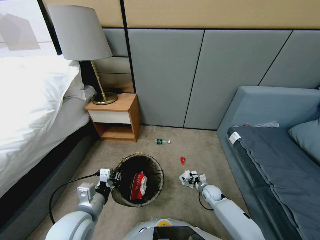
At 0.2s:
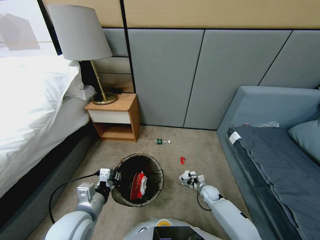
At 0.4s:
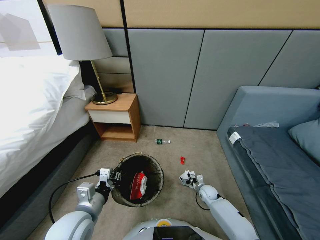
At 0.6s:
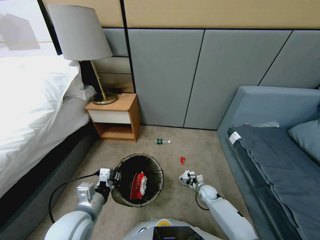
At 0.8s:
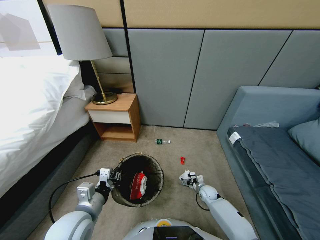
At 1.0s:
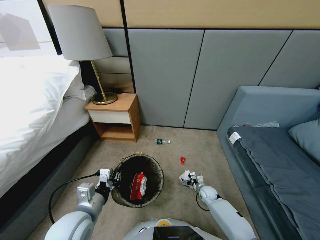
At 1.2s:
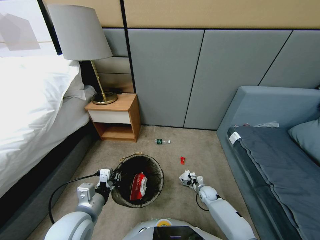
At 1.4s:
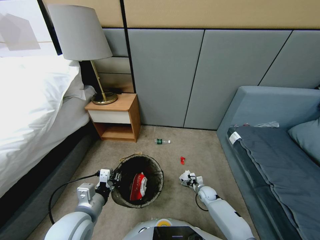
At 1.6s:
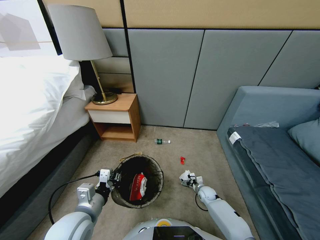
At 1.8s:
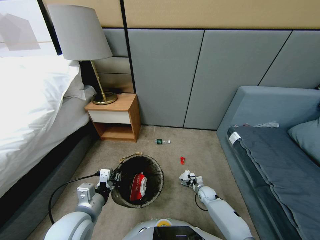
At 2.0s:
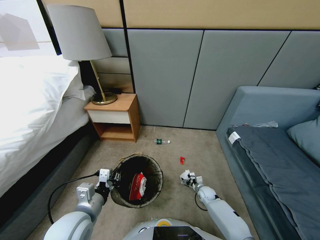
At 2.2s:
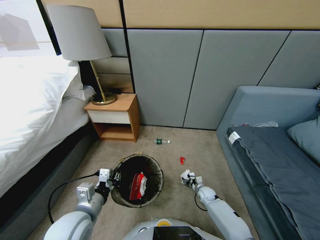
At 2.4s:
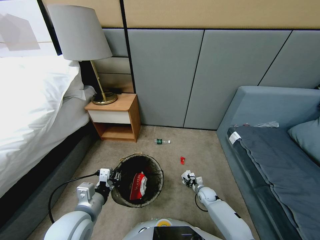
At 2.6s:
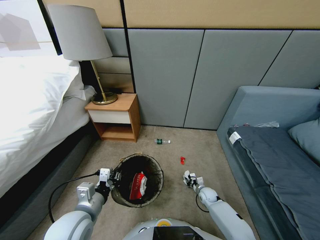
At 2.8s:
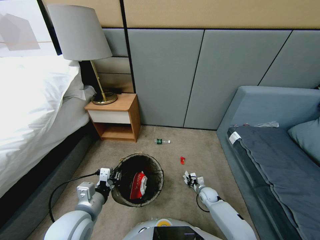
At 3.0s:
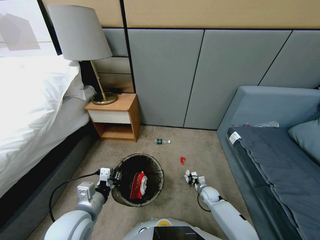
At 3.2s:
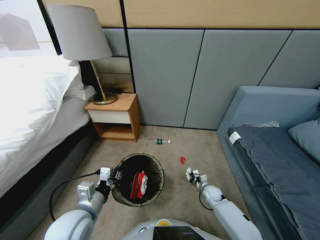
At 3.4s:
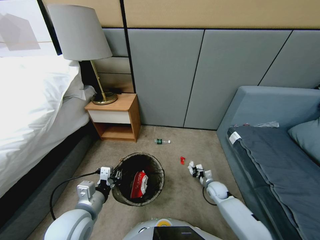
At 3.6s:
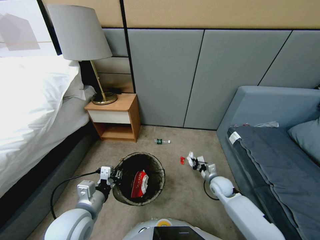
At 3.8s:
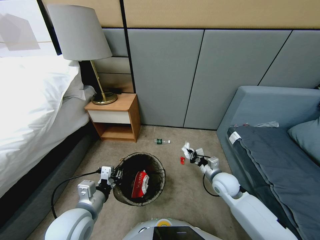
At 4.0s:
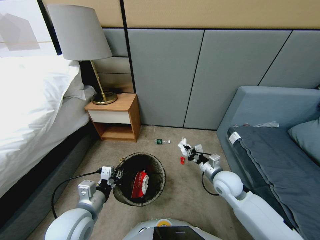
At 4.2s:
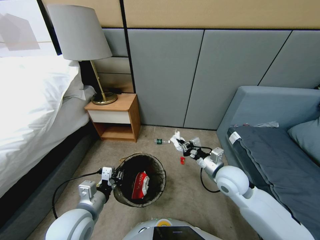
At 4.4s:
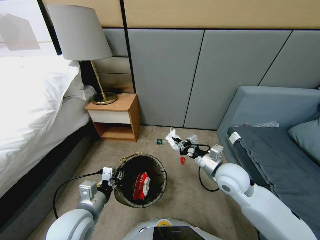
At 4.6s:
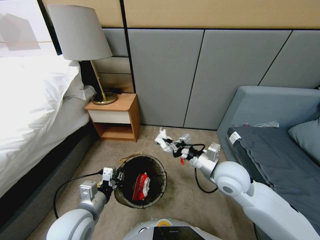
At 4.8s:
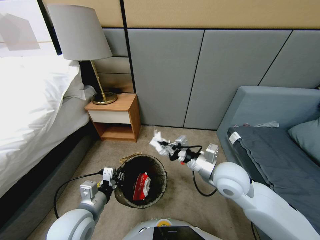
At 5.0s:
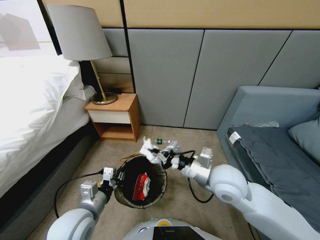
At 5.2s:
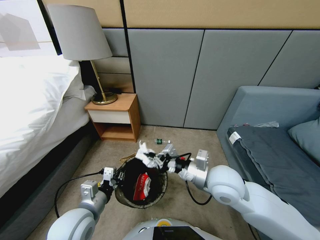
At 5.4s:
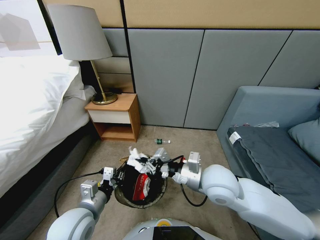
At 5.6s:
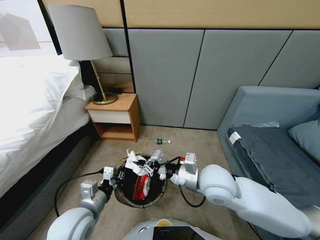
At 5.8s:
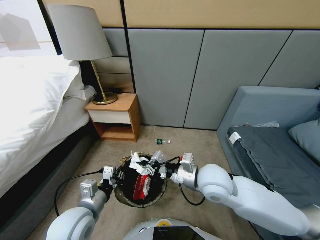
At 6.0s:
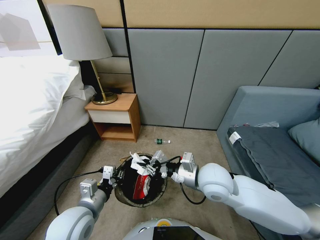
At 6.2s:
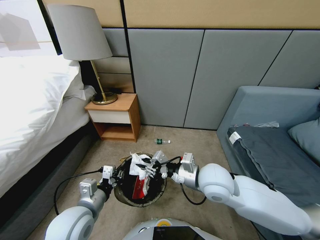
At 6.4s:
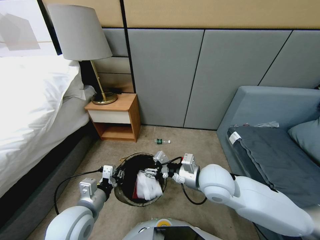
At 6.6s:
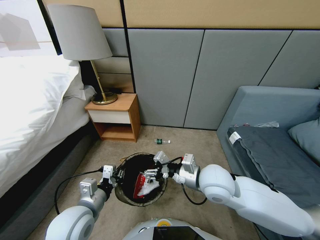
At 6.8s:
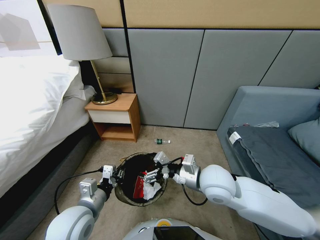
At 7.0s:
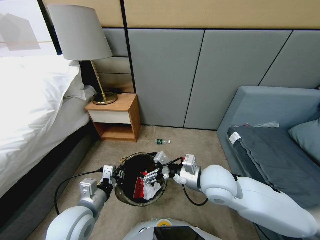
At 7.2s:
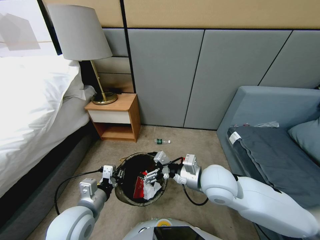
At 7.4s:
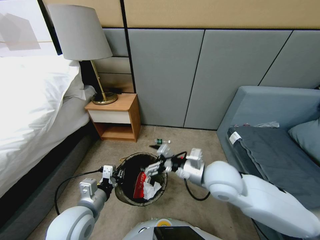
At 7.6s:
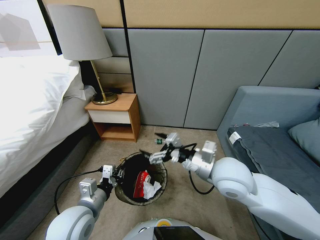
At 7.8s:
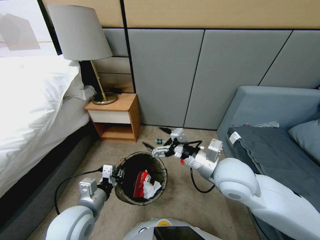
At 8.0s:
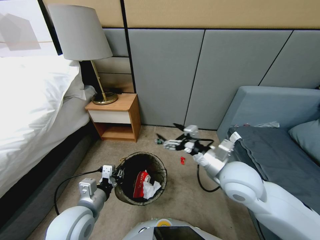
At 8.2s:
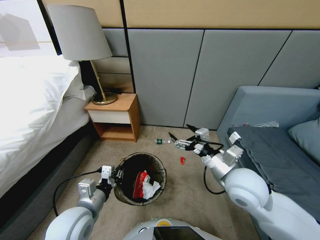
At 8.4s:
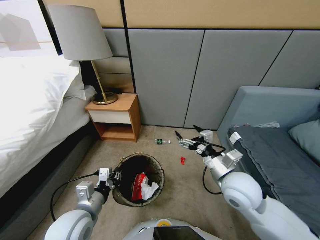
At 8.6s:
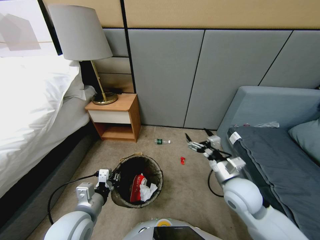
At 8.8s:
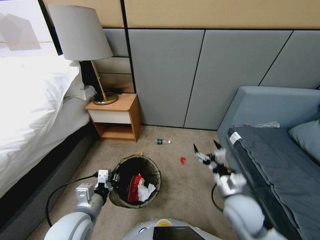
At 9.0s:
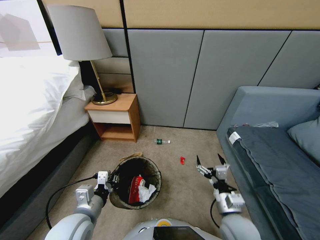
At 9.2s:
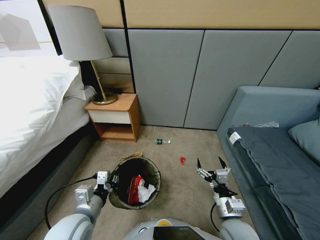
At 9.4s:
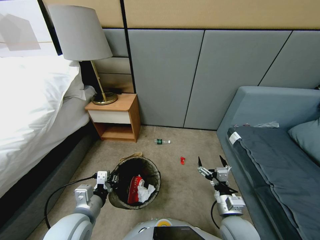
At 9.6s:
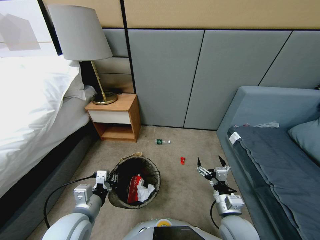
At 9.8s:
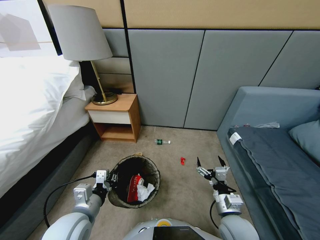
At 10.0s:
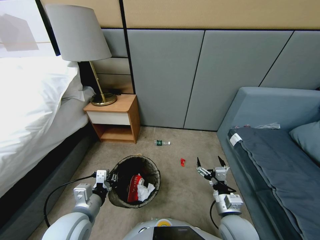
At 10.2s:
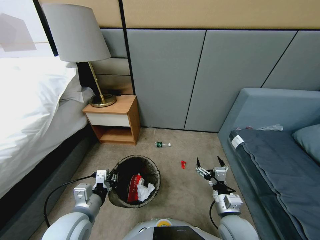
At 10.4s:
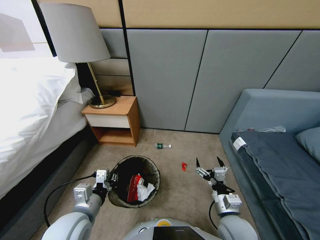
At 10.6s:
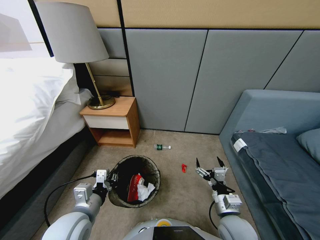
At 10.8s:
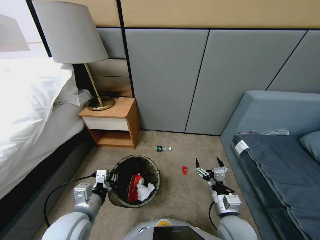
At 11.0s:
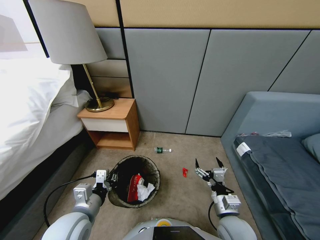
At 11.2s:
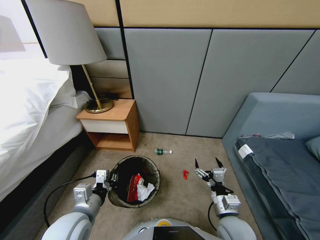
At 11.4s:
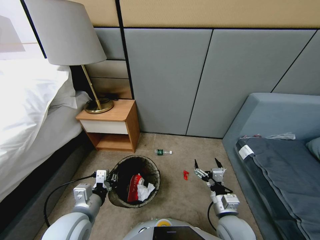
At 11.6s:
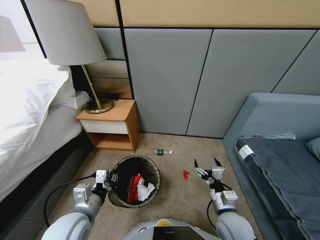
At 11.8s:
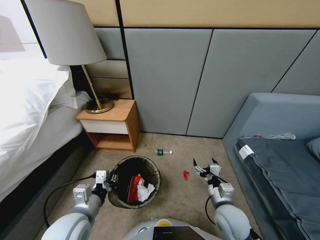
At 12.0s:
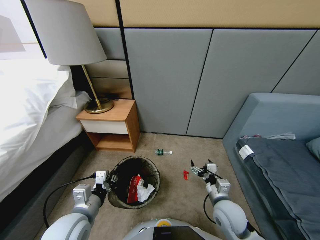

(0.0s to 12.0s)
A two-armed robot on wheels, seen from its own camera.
Task of the whole recording: Pick up the trash bin, then pick up the garbage from the floor and place it into the trash bin.
0.0s - 1.6s: The grippers move only a little.
1.6s - 3.0s: The right gripper closes.
3.0s - 4.4s: The right gripper is displaced upward by some 35 cm.
4.4s - 6.0s: The right gripper travels to the left by approximately 5 cm.
6.0s - 7.6s: The right gripper opens.
7.6s - 9.0s: The right gripper heads to the right and downward, covering about 10 cm.
9.0s - 10.4s: The right gripper travels downward and backward by roughly 15 cm.
10.4s - 12.0s: The right gripper goes approximately 5 cm forward.

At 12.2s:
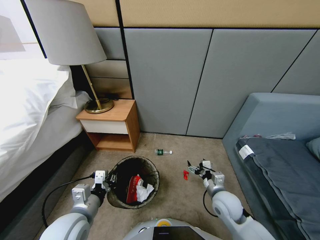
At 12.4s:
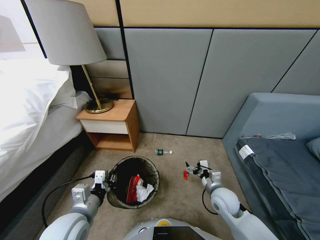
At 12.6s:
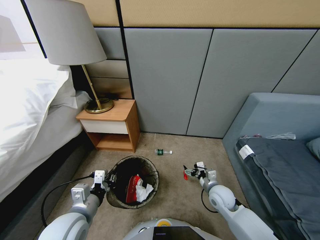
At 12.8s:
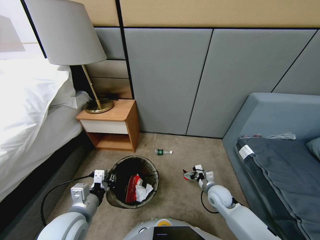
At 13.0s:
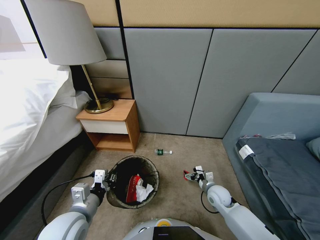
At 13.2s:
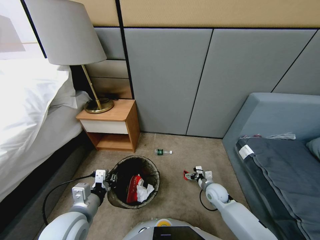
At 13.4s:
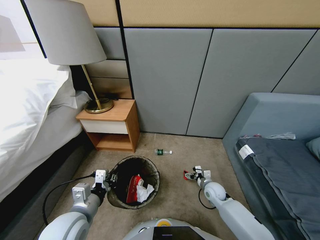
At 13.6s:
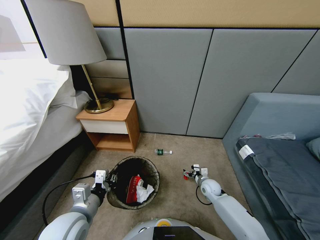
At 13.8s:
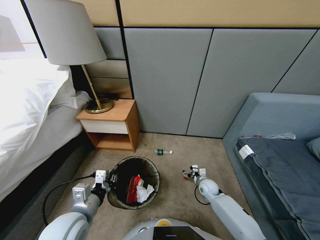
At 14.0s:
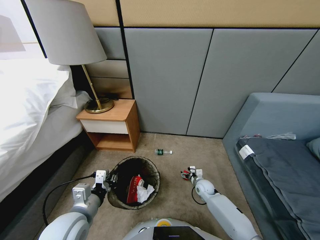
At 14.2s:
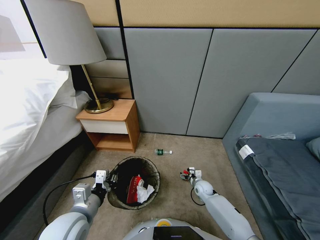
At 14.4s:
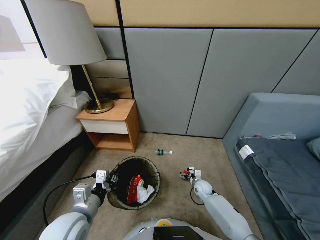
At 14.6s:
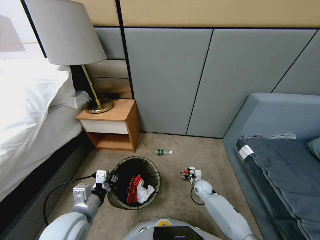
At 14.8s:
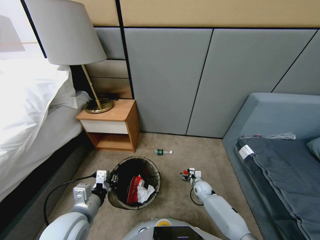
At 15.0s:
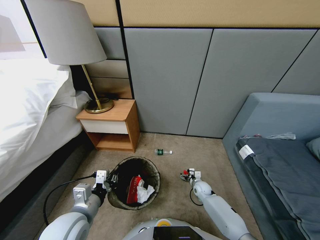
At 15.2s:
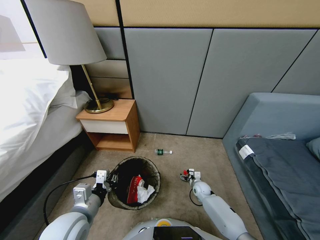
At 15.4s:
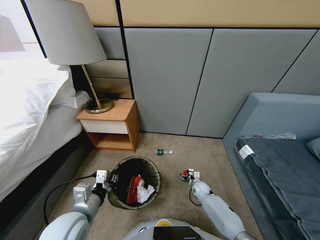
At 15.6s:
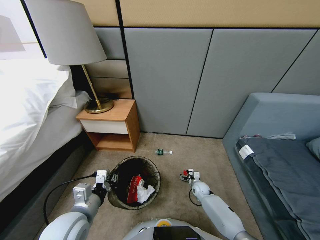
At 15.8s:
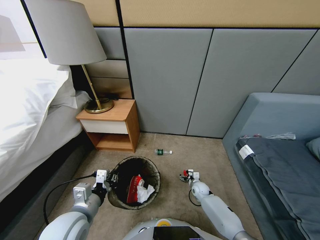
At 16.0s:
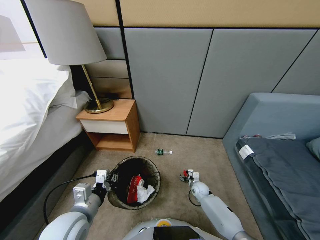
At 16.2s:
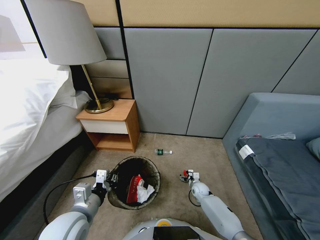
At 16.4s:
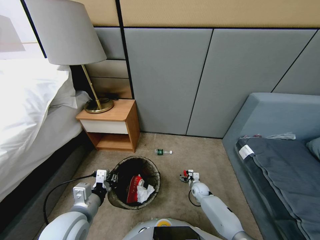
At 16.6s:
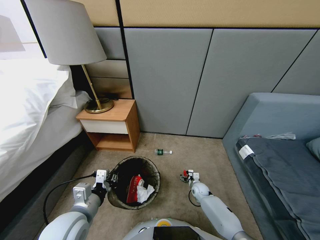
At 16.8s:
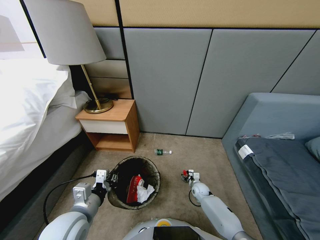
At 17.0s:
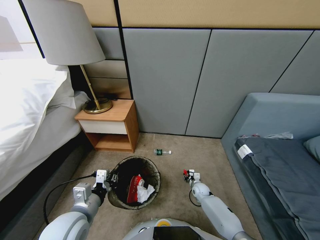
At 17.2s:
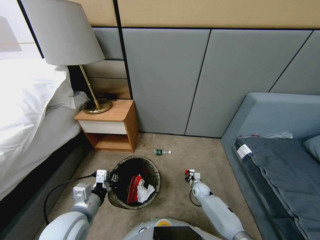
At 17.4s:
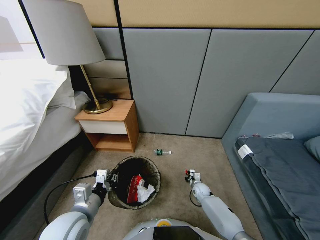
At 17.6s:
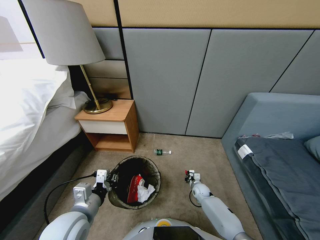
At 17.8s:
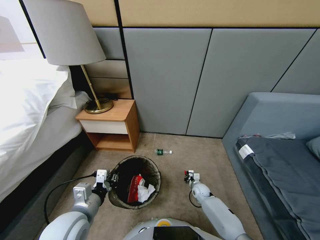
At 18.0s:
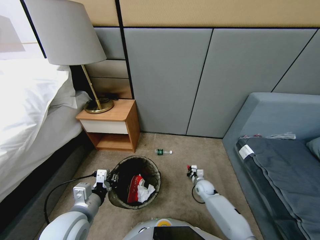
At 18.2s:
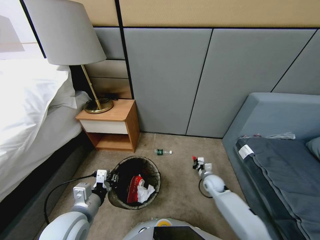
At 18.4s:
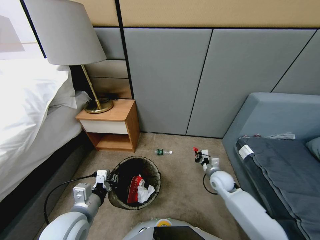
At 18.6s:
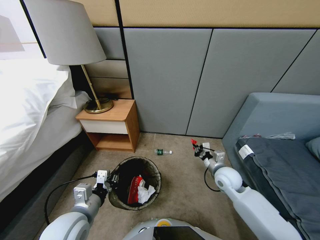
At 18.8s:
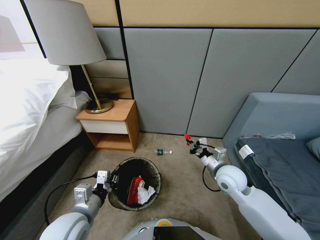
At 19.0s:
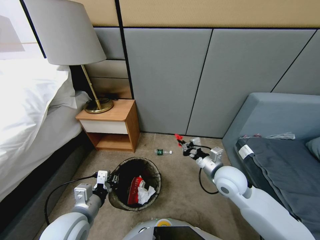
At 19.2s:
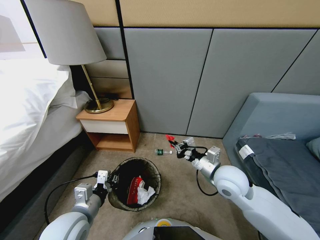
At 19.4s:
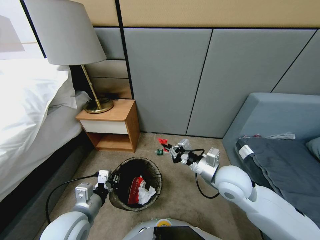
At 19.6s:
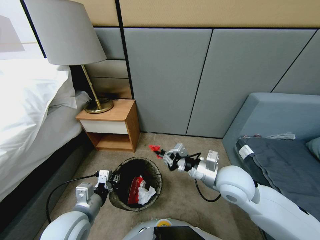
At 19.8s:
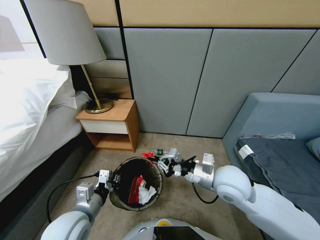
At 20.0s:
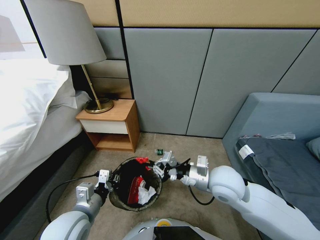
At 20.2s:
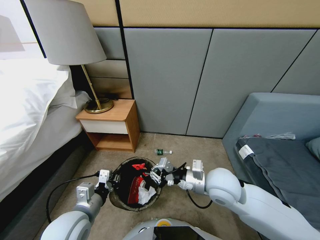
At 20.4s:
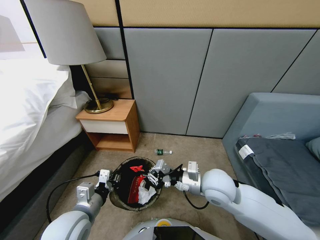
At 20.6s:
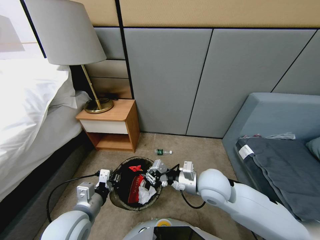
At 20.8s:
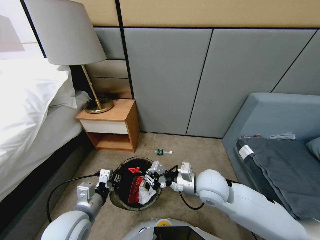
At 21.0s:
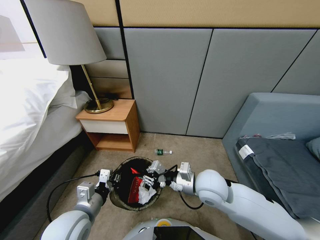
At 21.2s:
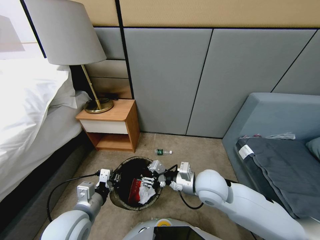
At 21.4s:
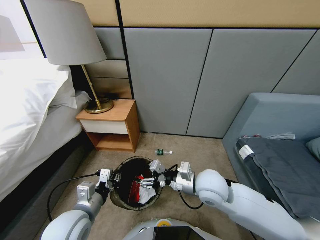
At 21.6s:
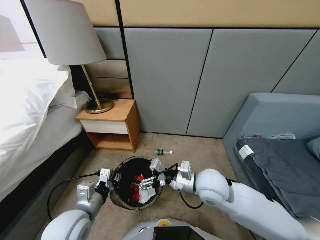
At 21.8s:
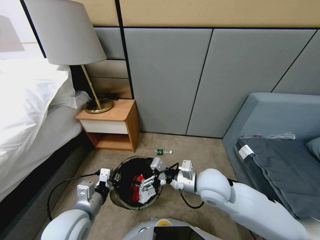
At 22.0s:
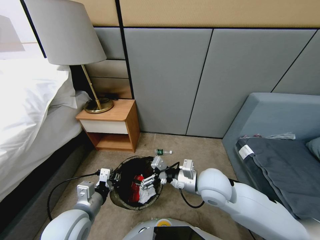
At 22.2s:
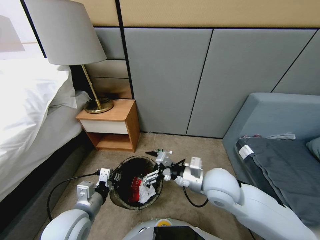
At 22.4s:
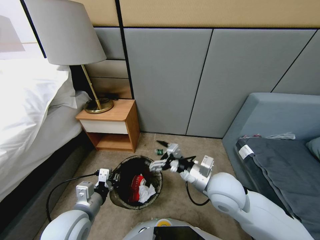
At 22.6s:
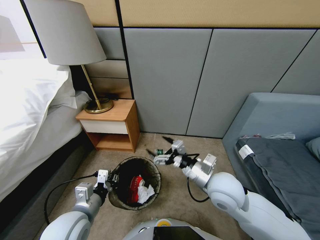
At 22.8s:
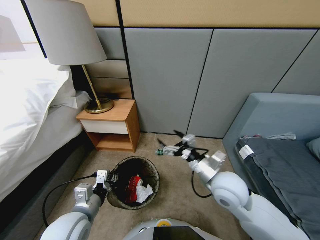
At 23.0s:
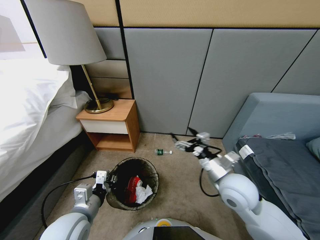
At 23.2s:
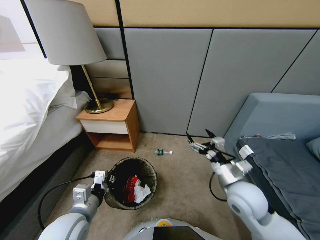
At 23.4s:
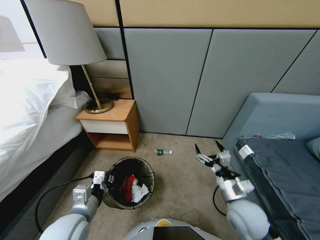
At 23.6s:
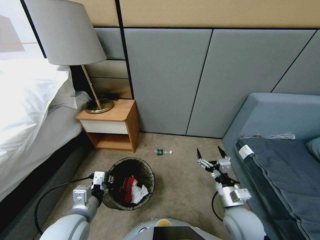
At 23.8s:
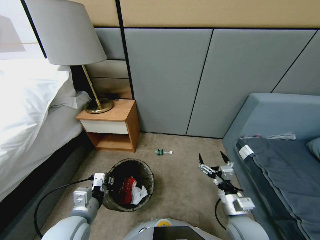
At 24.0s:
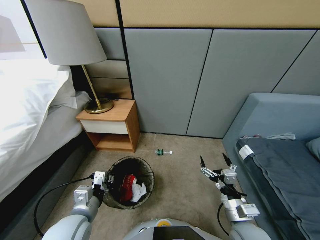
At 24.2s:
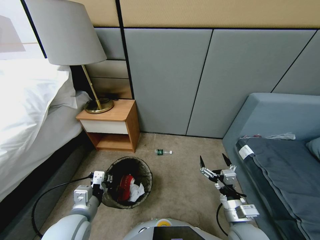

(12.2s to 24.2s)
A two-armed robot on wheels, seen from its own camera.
Task of the whole recording: Pick up the trash bin, then pick up the garbage from the floor and place it into the trash bin.
12.2s - 13.8s: The right gripper travels downward and forward by some 20 cm.
13.8s - 15.2s: The right gripper is displaced downward by roughly 5 cm.
15.2s - 16.6s: Neither gripper changes place.
16.6s - 18.2s: The right gripper is displaced upward by roughly 20 cm, and closes up.
18.2s - 19.8s: The right gripper moves upward and to the left, approximately 25 cm.
19.8s - 21.2s: The right gripper opens.
21.2s - 22.6s: The right gripper opens its fingers.
22.6s - 24.2s: The right gripper travels backward and downward by some 15 cm.
